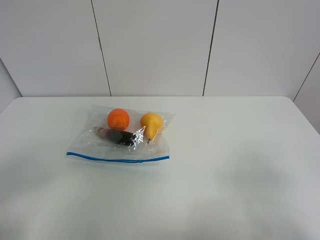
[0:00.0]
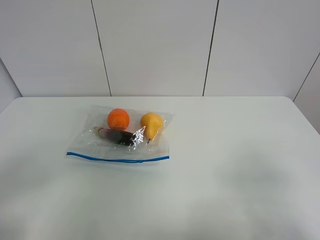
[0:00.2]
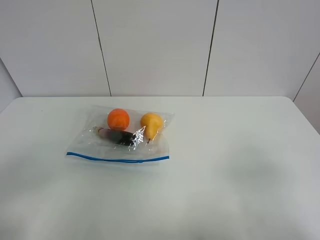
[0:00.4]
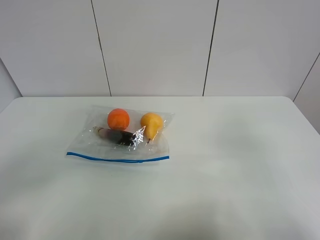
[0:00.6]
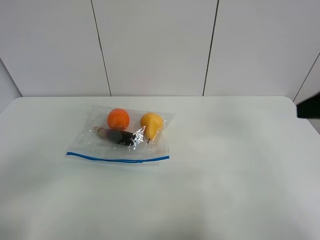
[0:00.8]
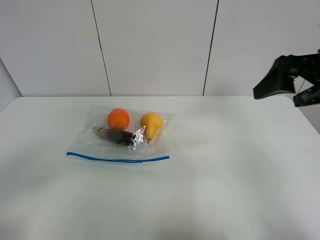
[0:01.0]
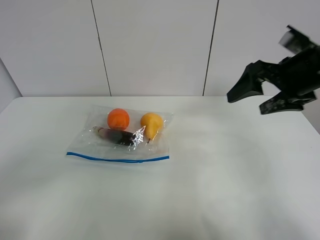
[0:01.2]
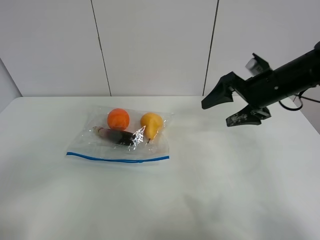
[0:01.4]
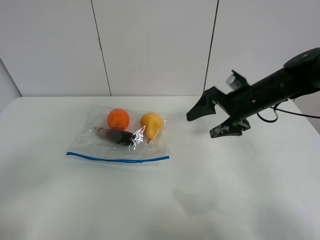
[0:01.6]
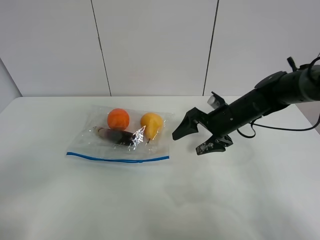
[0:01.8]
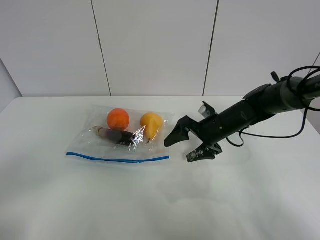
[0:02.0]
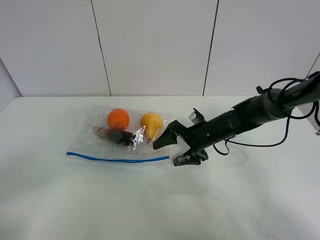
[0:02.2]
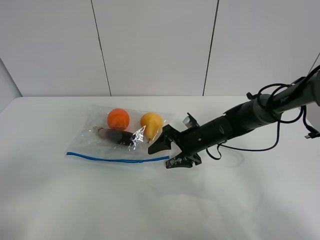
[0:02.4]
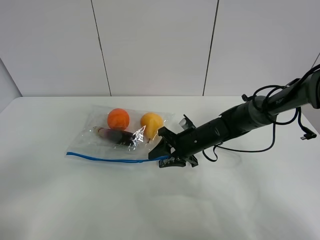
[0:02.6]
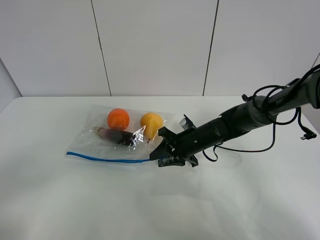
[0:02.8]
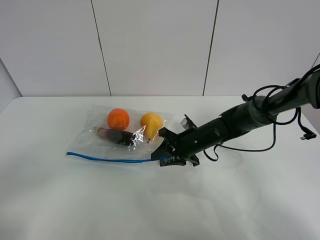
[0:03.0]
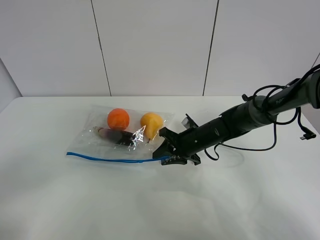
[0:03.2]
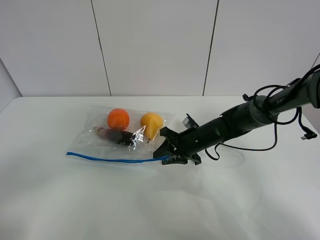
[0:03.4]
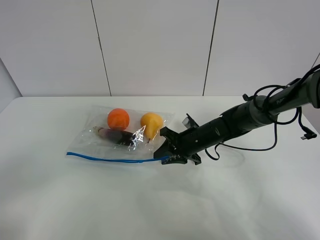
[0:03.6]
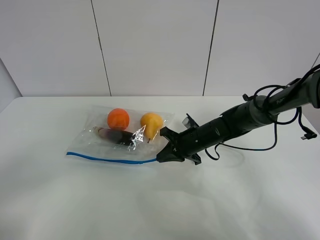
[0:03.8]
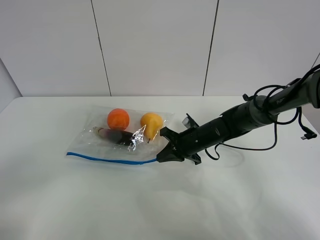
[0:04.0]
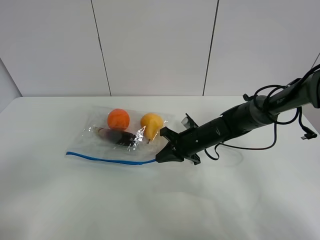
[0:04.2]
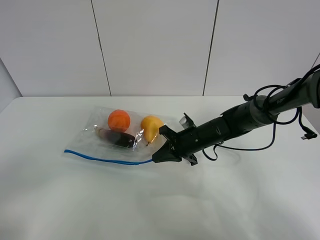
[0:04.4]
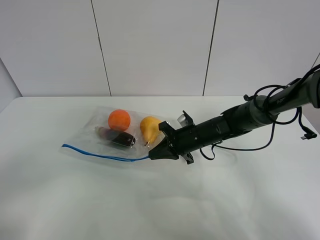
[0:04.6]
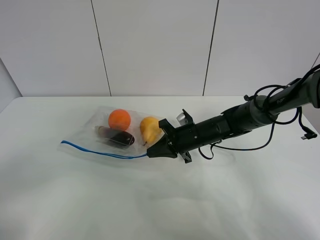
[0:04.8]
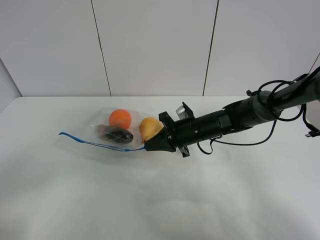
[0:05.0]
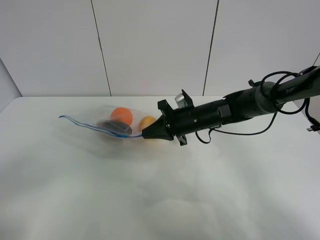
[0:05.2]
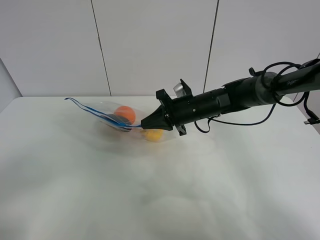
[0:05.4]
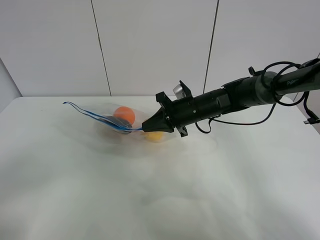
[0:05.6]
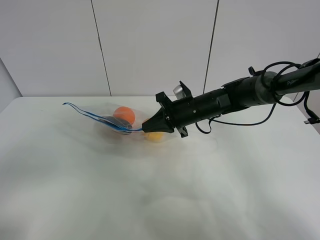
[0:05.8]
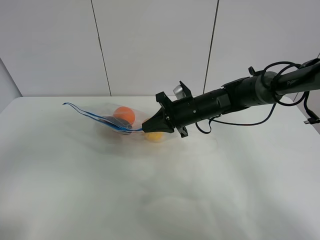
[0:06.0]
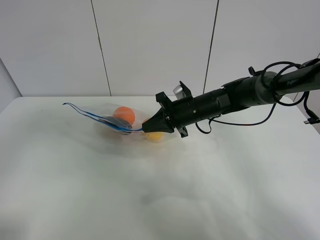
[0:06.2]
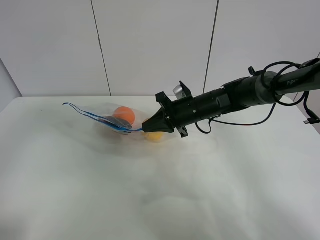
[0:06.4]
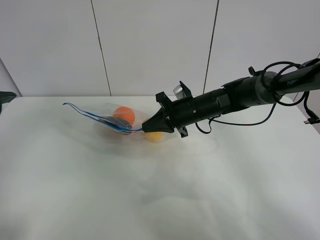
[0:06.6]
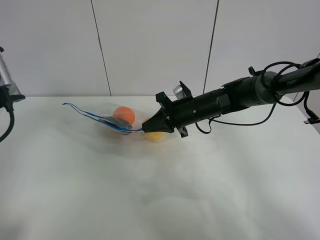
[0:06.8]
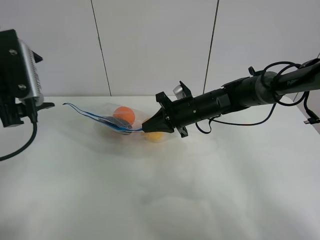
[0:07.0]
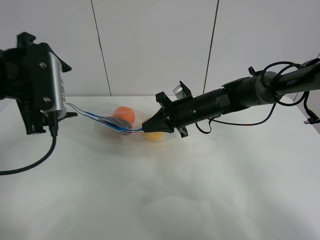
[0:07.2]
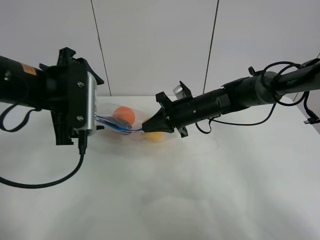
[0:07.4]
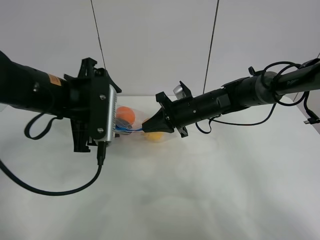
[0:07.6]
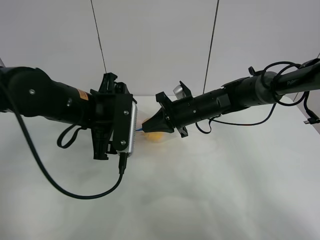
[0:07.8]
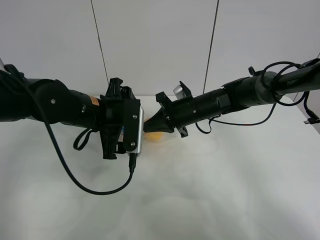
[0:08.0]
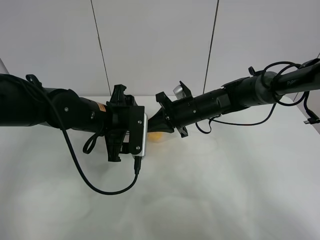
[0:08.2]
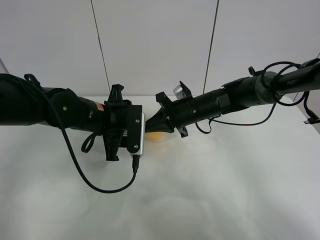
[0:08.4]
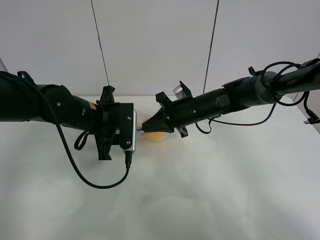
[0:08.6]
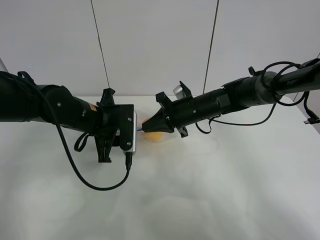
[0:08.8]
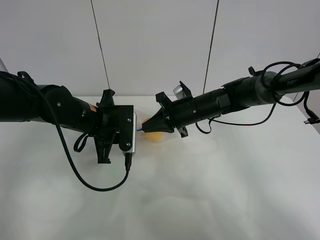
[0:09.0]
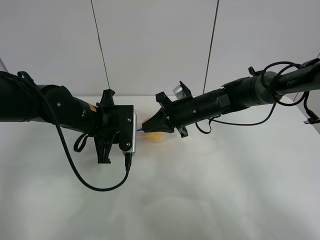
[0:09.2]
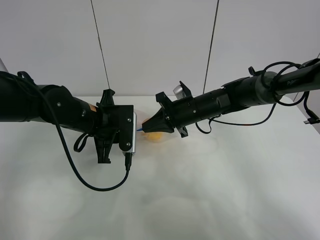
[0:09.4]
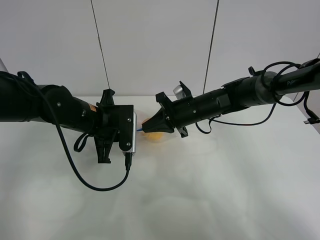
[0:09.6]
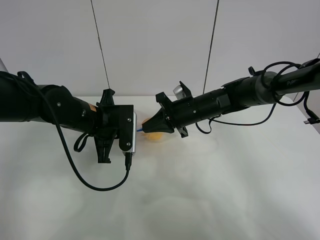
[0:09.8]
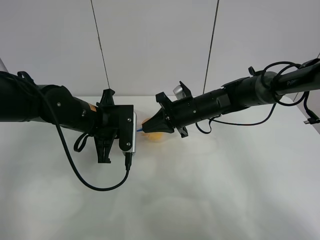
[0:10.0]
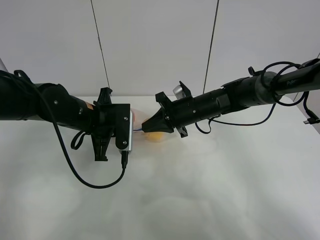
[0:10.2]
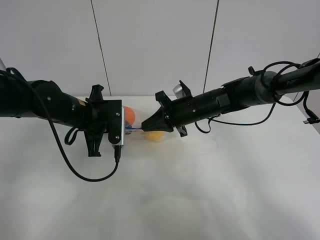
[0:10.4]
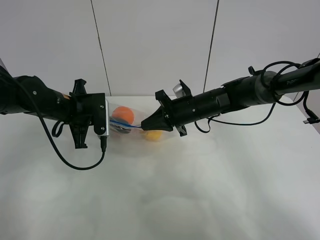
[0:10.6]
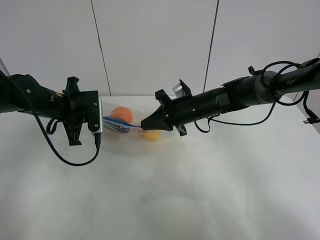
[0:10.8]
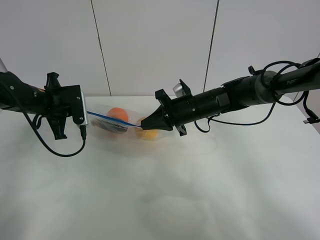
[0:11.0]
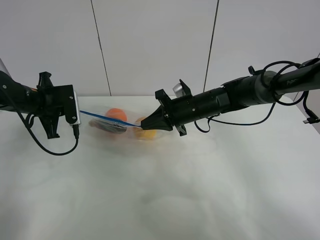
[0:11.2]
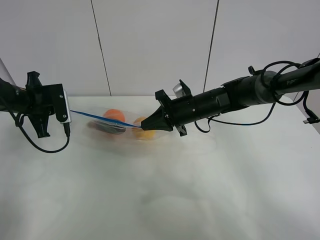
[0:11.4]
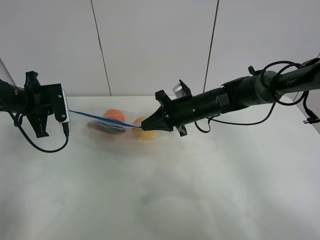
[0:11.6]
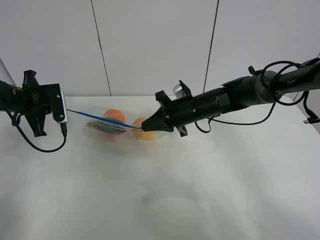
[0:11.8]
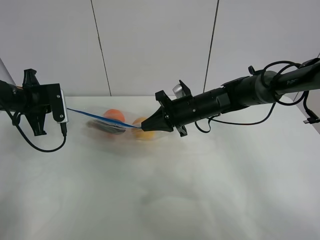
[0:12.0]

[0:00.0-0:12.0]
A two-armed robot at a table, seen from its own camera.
Step, 0:00.0 to 0:03.8: Grasp the fruit bag with right gripper.
Step, 0:04.0 to 0:05.6: Lift the fruit bag with your right gripper.
0:00.0 to 0:01.6: The right gripper heads forward, covering about 35 cm.
0:01.6 to 0:03.0: The right gripper heads downward and to the left, covering approximately 15 cm, and closes its fingers.
0:03.0 to 0:04.4: The right gripper closes its fingers.
0:04.4 to 0:06.0: The two grippers go some 5 cm upward.
0:06.0 to 0:07.6: The left gripper heads forward and to the right, covering roughly 25 cm.
0:07.6 to 0:09.0: The left gripper heads downward, covering about 10 cm, and closes.
0:09.0 to 0:10.4: The grippers stay close to where they were, moving slightly.
0:10.4 to 0:12.0: The left gripper moves to the left, roughly 15 cm.

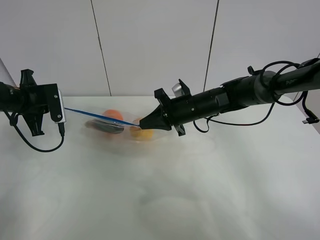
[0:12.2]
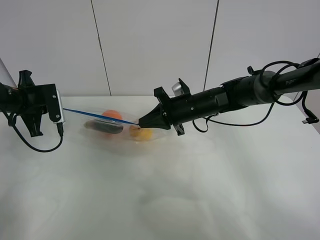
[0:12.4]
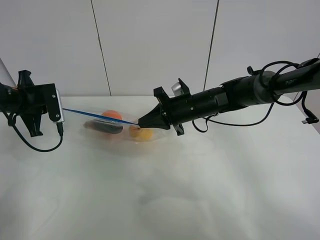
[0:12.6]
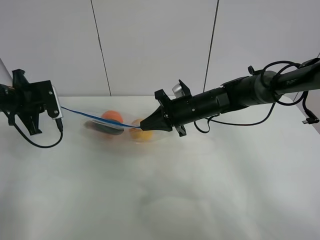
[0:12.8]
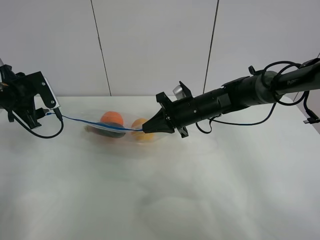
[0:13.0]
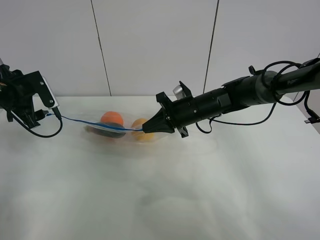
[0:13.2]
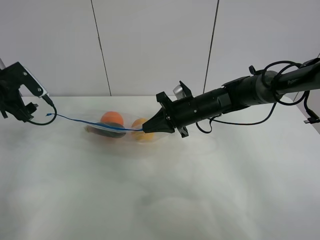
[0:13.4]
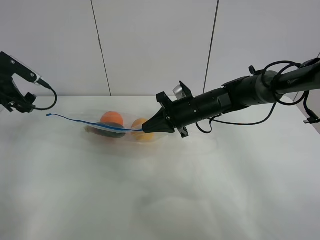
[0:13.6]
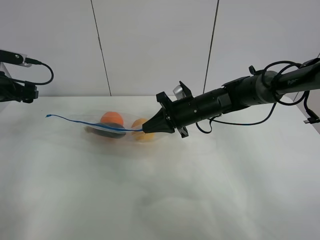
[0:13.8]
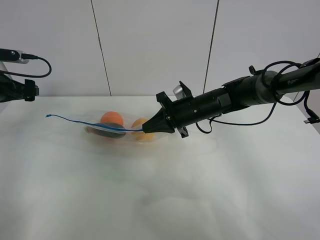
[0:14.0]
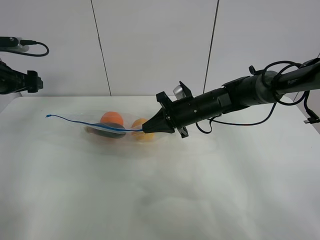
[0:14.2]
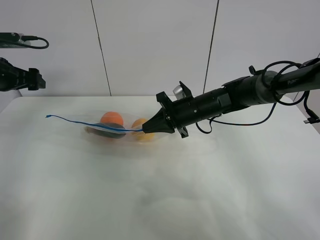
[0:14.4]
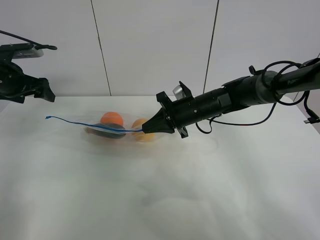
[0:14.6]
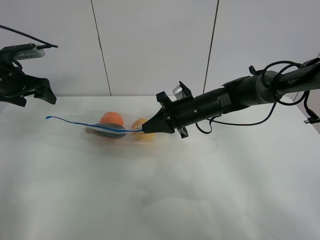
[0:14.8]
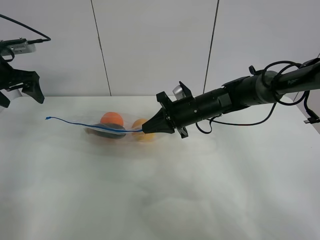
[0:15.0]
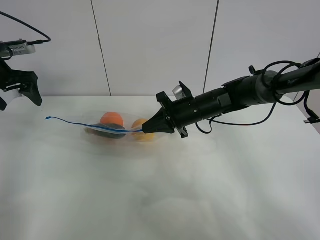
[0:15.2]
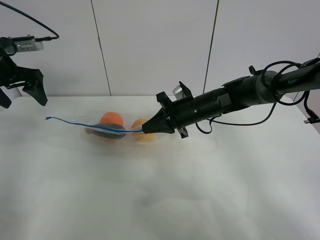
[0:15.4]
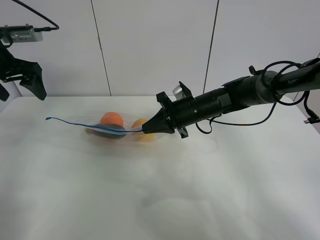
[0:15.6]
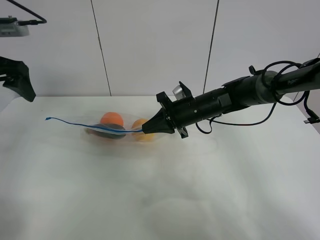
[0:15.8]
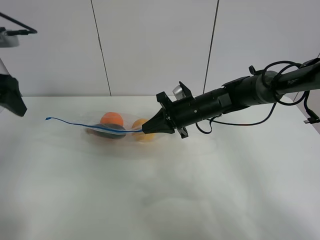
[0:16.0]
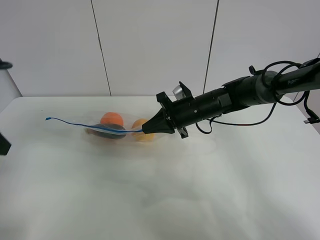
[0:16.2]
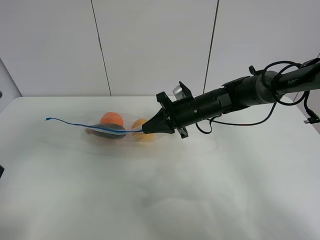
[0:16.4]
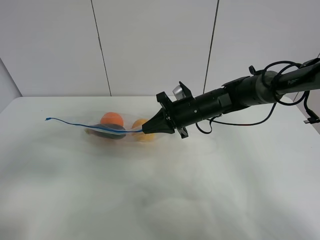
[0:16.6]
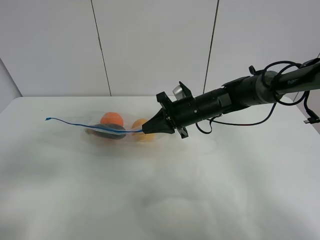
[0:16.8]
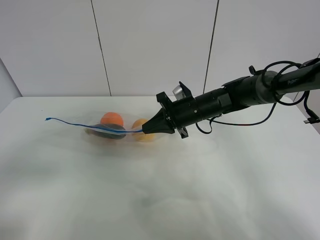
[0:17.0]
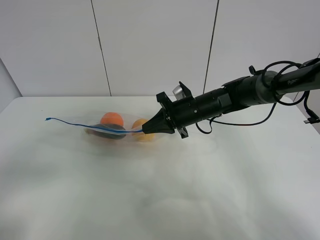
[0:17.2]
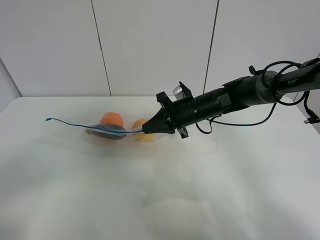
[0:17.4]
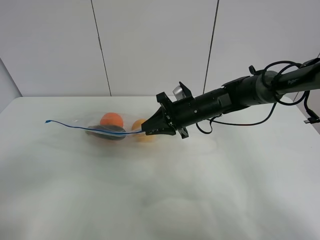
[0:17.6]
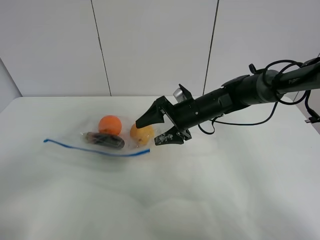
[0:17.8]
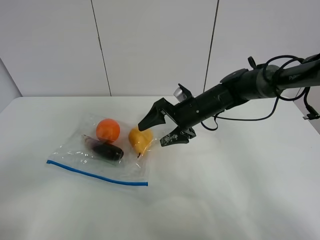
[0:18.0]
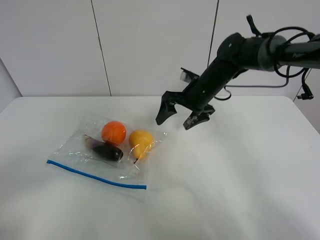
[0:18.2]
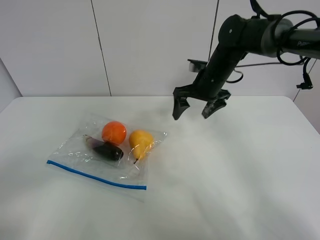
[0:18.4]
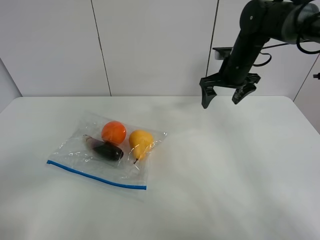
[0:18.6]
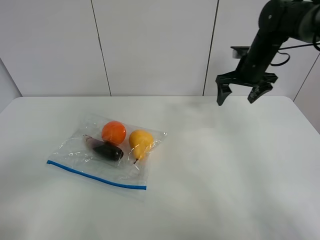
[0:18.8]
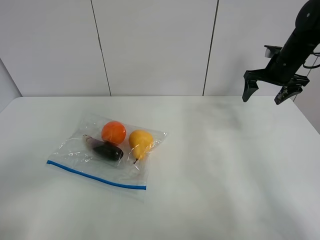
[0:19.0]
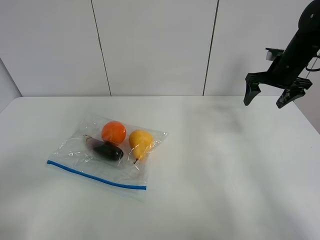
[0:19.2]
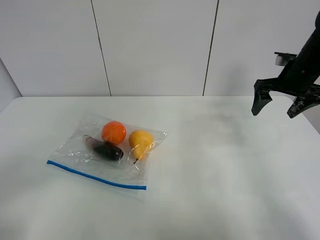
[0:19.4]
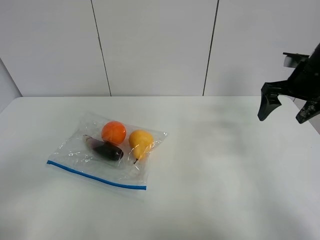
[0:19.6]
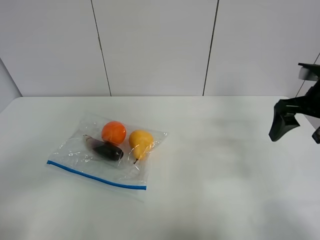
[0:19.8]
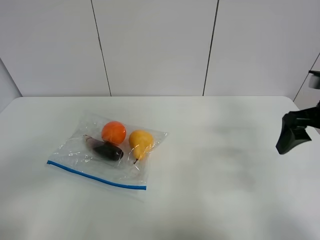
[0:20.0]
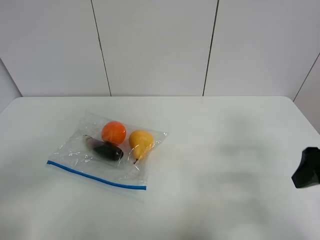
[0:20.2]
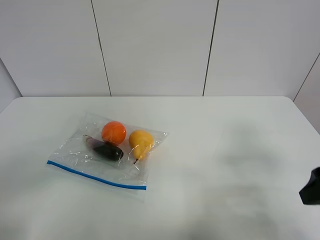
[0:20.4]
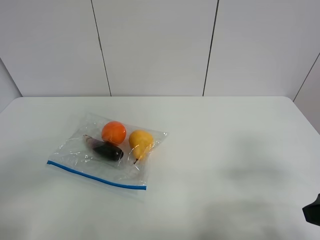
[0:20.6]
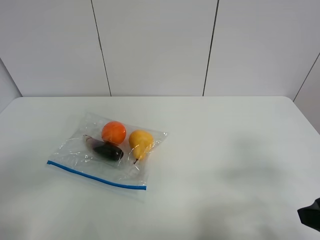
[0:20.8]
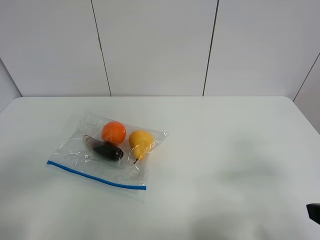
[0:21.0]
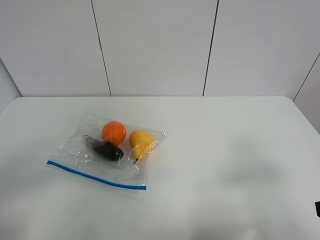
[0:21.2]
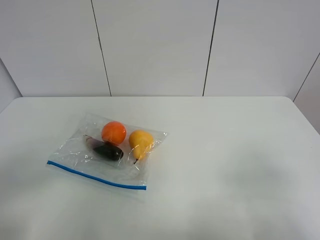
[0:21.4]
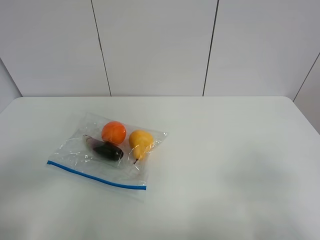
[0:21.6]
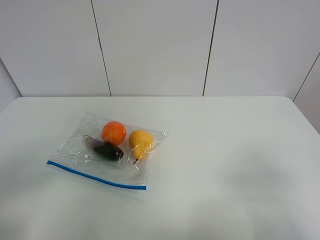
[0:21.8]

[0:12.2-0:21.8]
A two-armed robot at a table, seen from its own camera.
0:12.2 to 0:13.8: The left gripper is displaced to the left by approximately 5 cm, and opens.
0:13.8 to 0:15.4: The left gripper is displaced upward by some 10 cm.
0:15.4 to 0:17.0: The left gripper is displaced backward by roughly 30 cm.
0:17.0 to 0:18.6: The left gripper moves backward, some 5 cm; the right gripper goes about 15 cm to the right, upward and forward, and opens its fingers.
0:18.6 to 0:20.2: The right gripper shifts some 30 cm backward.
0:20.2 to 0:21.8: The right gripper shifts some 15 cm backward.
